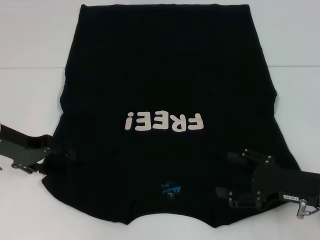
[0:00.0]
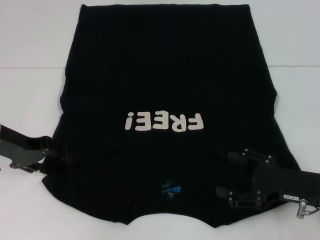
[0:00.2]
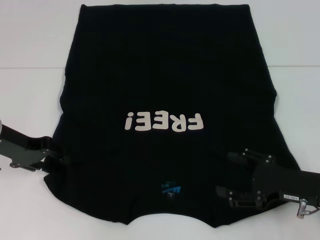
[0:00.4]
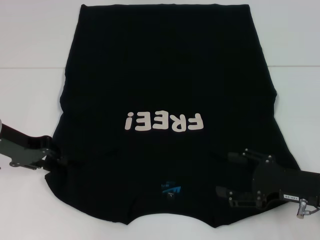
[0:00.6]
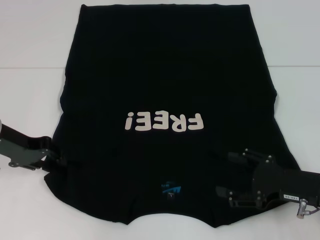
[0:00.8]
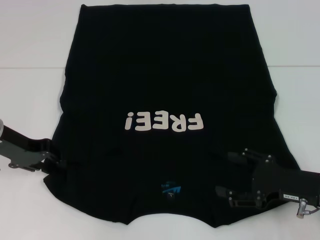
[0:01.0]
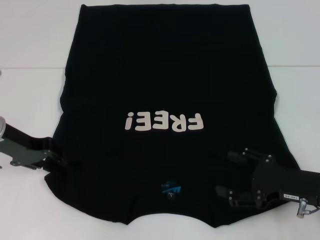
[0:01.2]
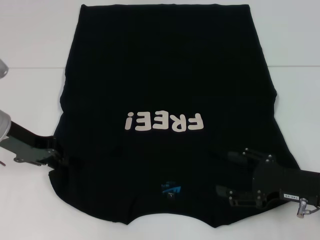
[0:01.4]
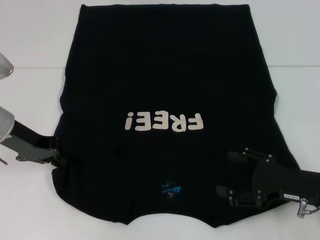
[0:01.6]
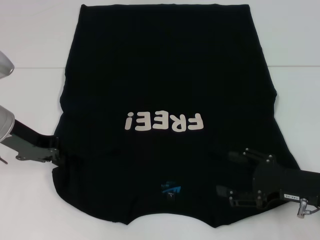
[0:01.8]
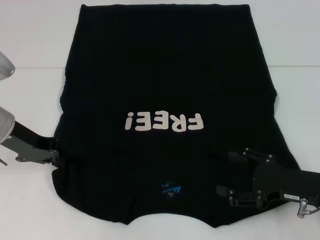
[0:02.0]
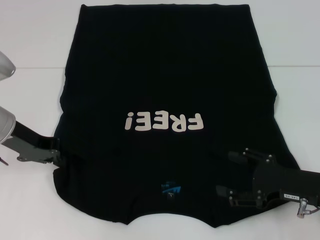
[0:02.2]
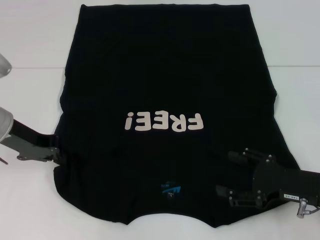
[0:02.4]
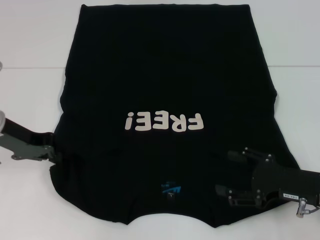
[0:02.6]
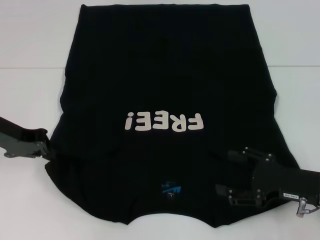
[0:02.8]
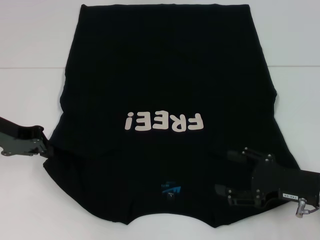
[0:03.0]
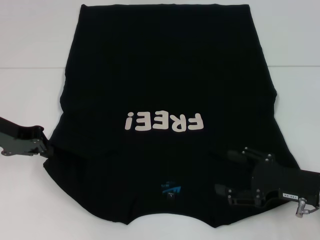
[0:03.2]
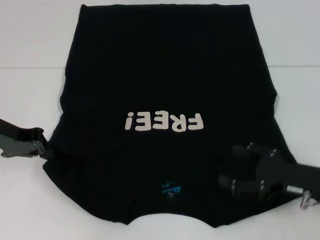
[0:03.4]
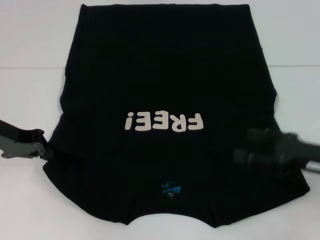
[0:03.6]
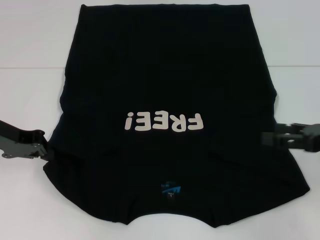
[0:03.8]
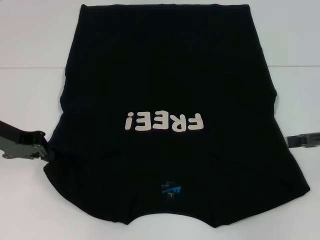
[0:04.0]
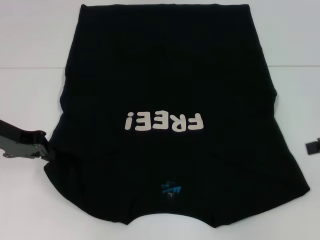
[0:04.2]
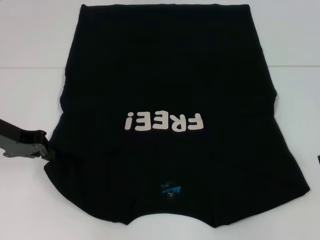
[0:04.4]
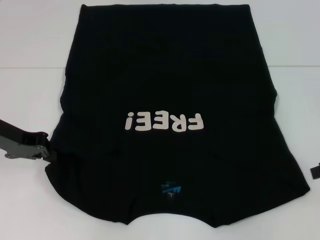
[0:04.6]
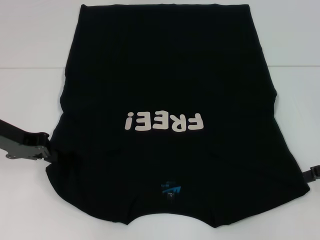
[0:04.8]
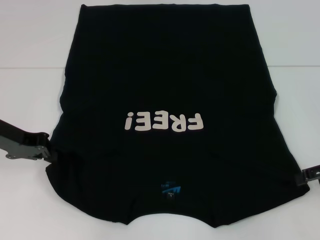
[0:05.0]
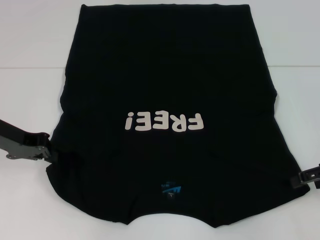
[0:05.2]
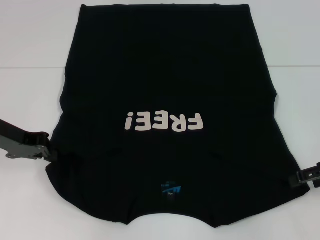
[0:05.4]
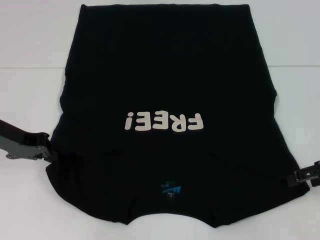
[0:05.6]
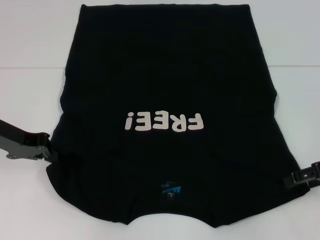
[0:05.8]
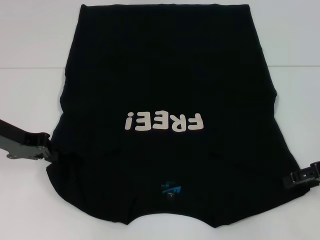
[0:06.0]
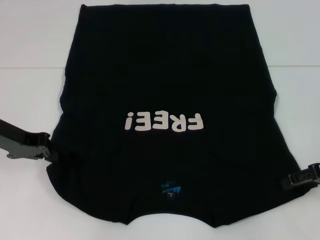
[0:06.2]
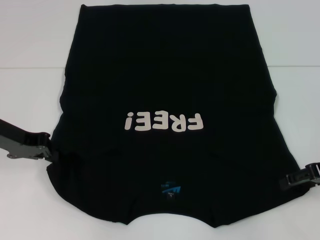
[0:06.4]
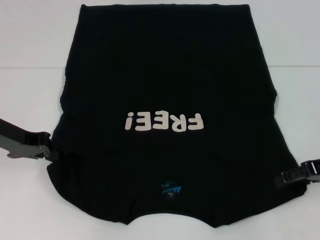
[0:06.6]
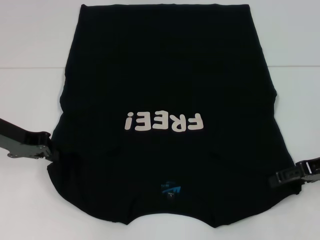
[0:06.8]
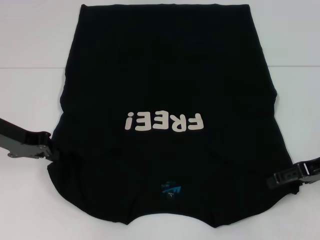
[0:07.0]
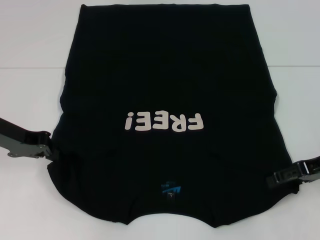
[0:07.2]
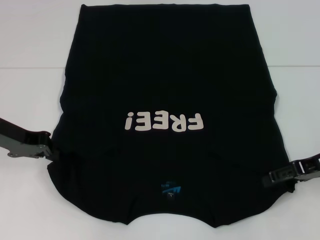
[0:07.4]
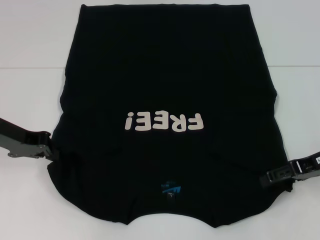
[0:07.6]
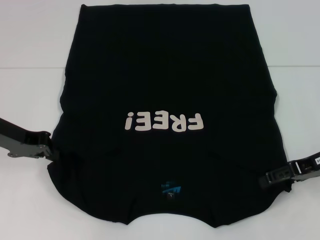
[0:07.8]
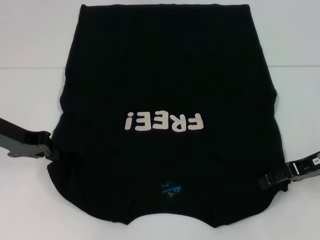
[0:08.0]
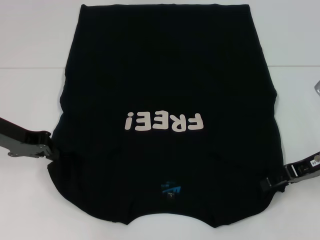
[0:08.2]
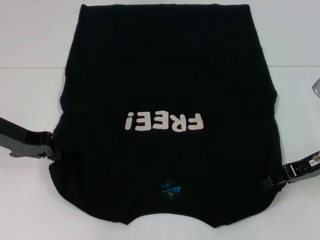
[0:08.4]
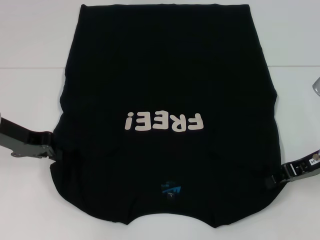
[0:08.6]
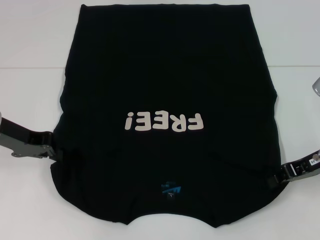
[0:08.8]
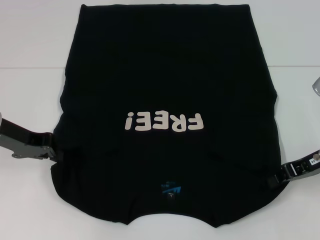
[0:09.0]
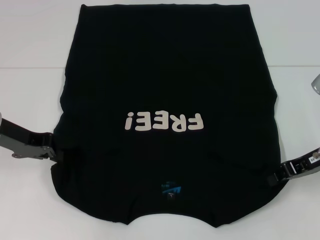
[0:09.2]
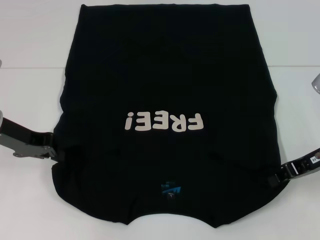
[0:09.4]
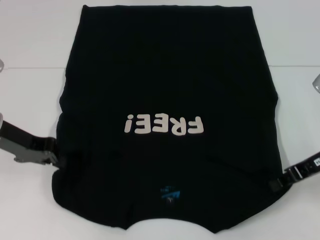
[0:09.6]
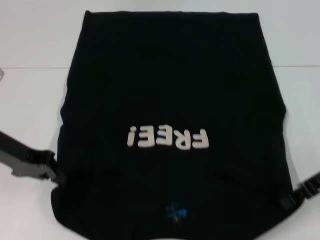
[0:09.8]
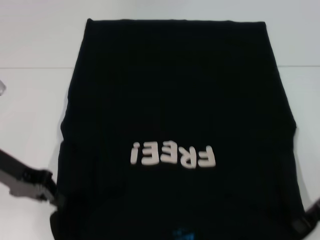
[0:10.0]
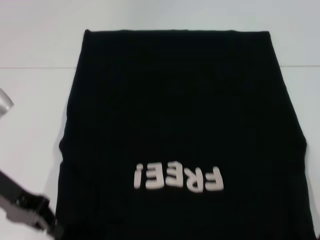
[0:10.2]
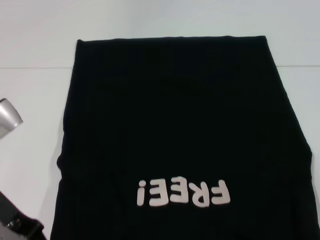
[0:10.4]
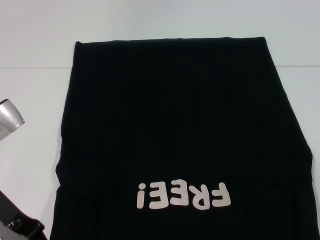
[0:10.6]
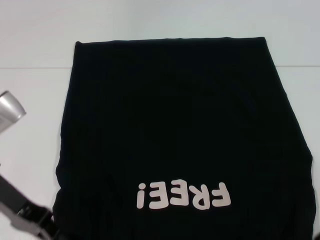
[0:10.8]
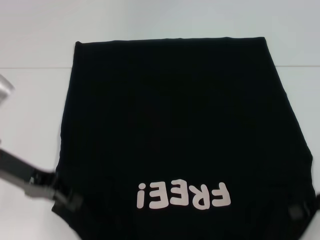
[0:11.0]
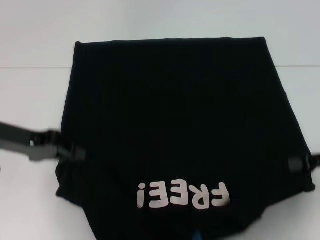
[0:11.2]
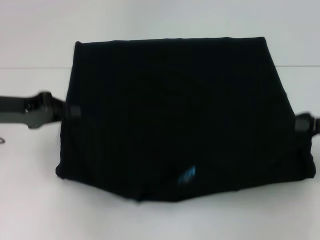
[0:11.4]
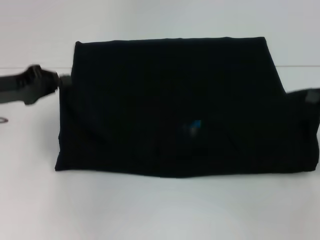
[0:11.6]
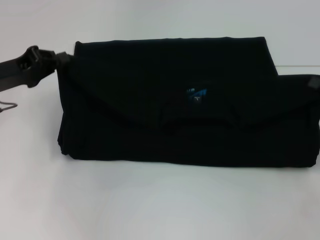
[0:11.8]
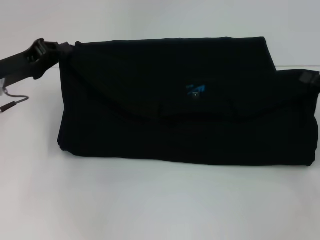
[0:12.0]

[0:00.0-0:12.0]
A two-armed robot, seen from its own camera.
Step, 0:00.0 to 0:02.0: Grab the bottom left corner with your left hand.
Step, 0:02.2 to 0:09.0: Grab the bottom right corner with your right hand.
0:00.0 to 0:01.6: The left gripper closes.
0:01.6 to 0:03.0: The grippers make only small movements.
0:03.0 to 0:04.4: The right gripper goes about 15 cm upward, to the right and forward.
0:04.4 to 0:06.0: The right gripper is displaced downward by approximately 5 cm.
0:06.0 to 0:07.6: The grippers stay close to where they were, moving slightly.
0:07.6 to 0:09.0: The right gripper closes up.
0:09.0 to 0:10.4: Both grippers move backward, approximately 5 cm.
0:10.4 to 0:12.0: The right gripper heads to the right, covering some 5 cm; the left gripper moves forward, about 10 cm.

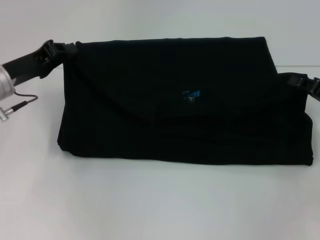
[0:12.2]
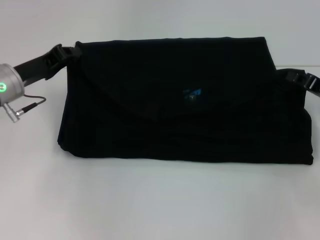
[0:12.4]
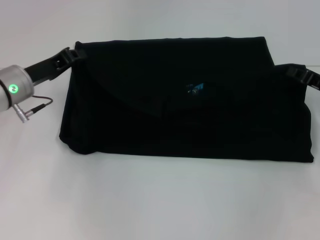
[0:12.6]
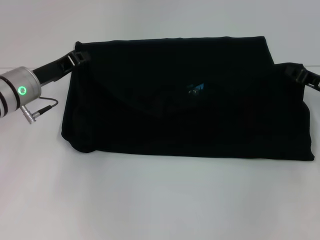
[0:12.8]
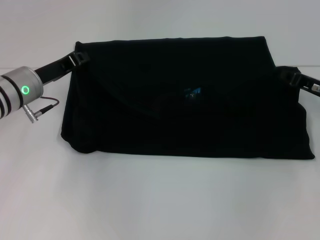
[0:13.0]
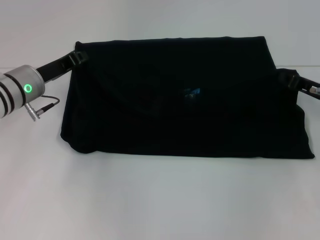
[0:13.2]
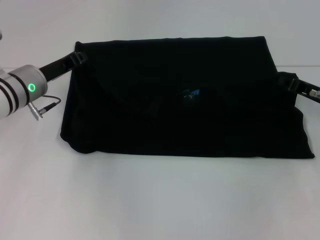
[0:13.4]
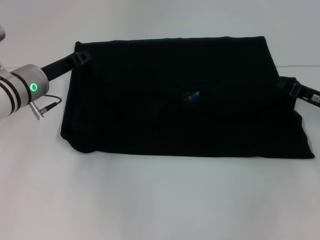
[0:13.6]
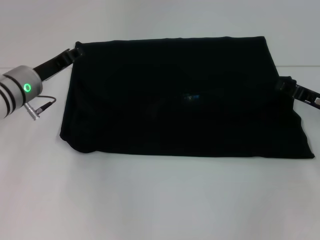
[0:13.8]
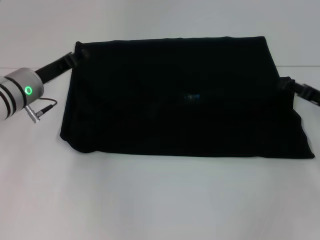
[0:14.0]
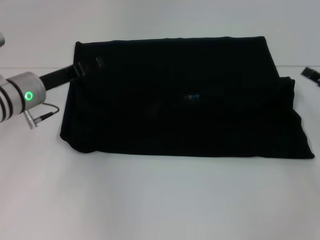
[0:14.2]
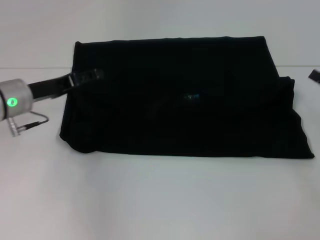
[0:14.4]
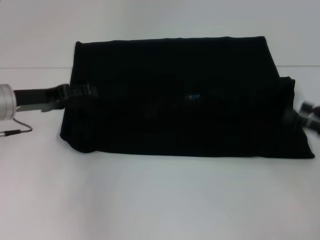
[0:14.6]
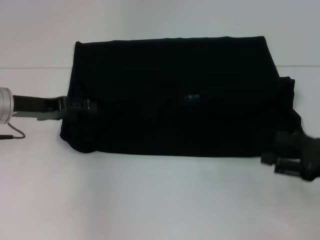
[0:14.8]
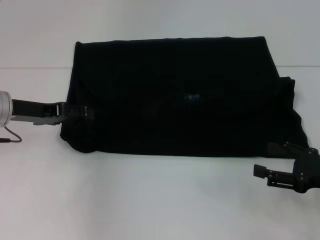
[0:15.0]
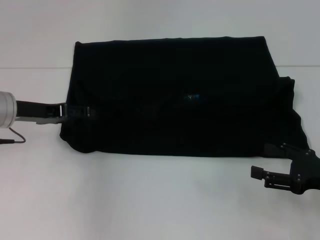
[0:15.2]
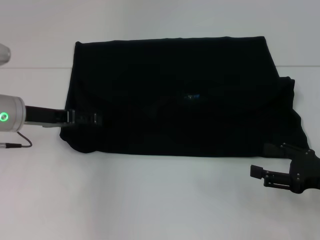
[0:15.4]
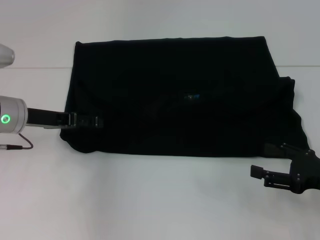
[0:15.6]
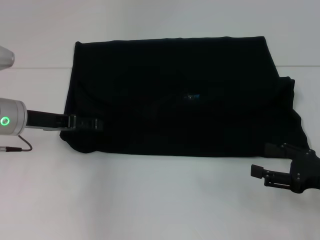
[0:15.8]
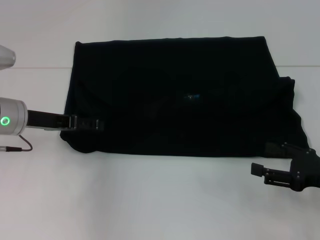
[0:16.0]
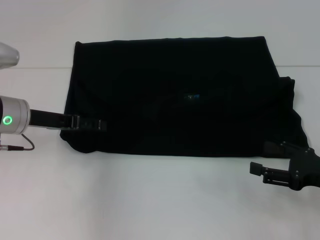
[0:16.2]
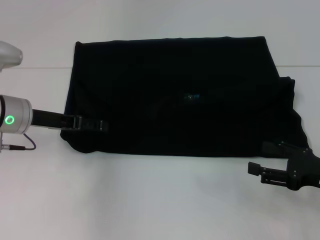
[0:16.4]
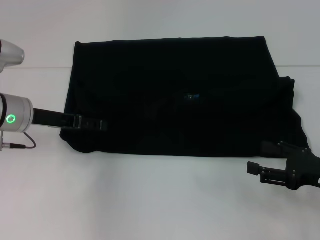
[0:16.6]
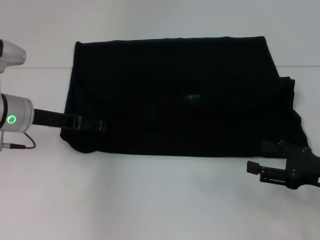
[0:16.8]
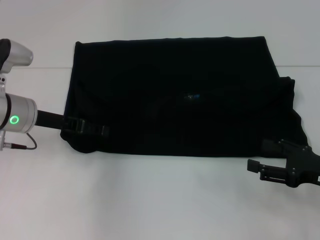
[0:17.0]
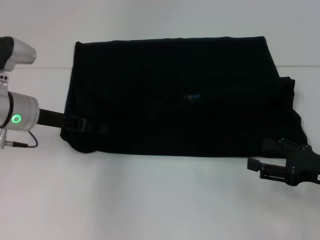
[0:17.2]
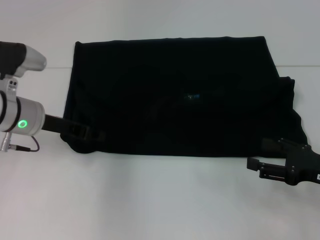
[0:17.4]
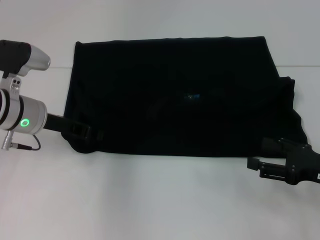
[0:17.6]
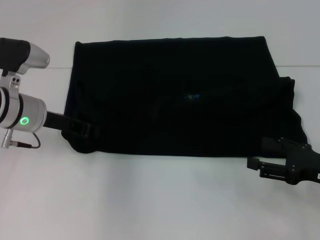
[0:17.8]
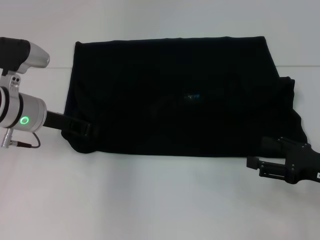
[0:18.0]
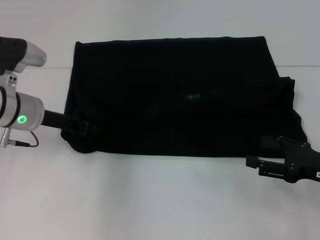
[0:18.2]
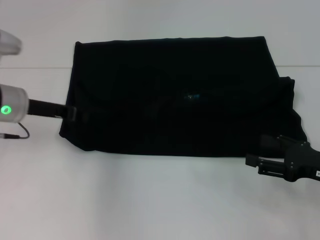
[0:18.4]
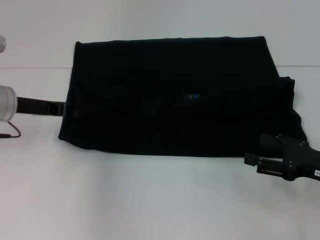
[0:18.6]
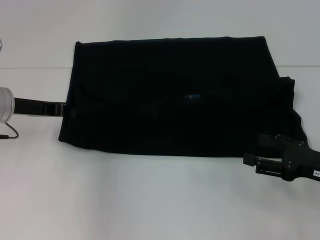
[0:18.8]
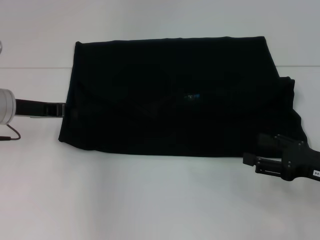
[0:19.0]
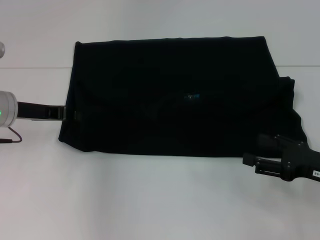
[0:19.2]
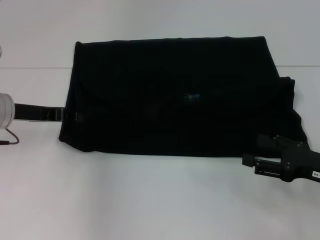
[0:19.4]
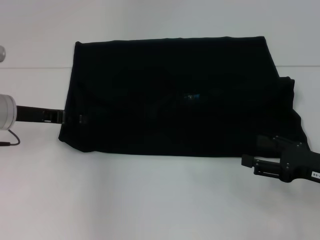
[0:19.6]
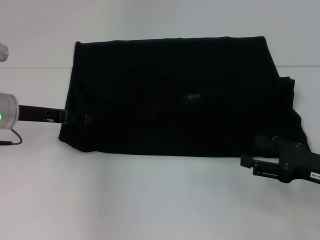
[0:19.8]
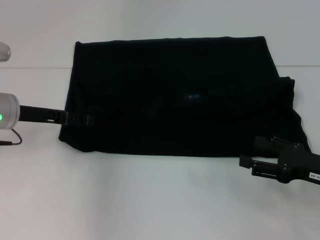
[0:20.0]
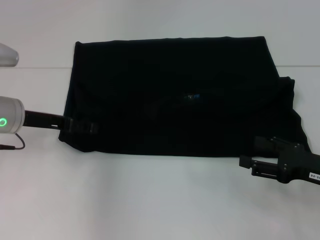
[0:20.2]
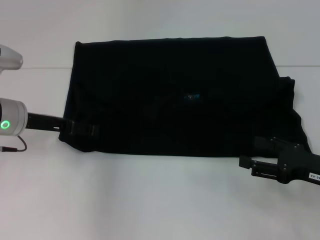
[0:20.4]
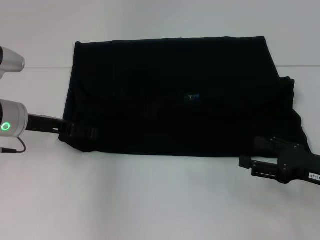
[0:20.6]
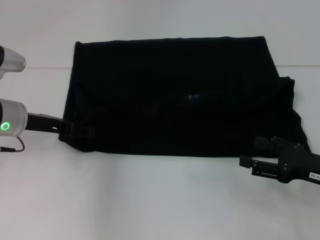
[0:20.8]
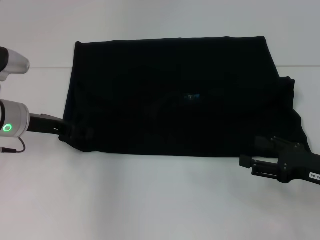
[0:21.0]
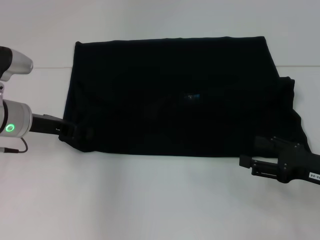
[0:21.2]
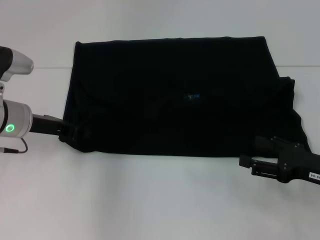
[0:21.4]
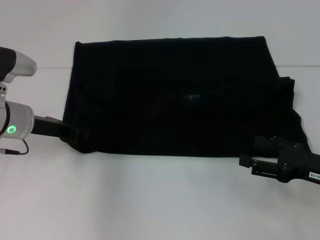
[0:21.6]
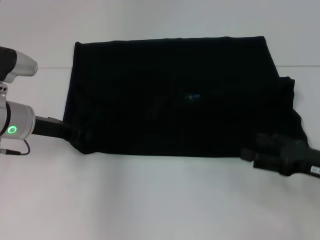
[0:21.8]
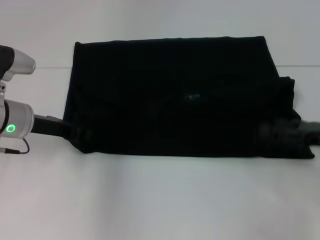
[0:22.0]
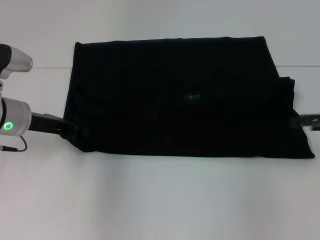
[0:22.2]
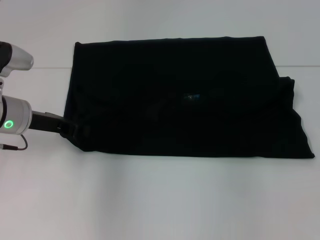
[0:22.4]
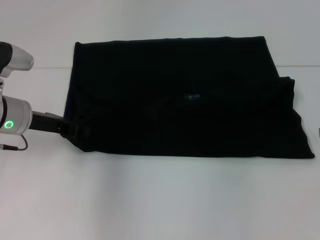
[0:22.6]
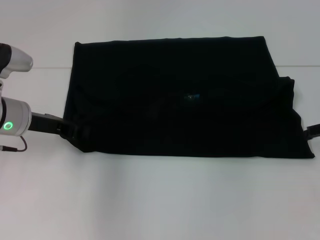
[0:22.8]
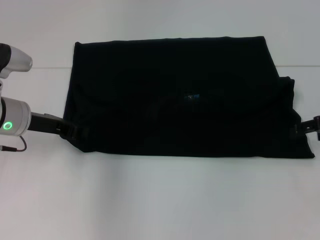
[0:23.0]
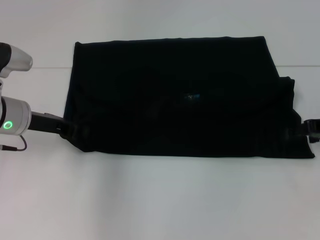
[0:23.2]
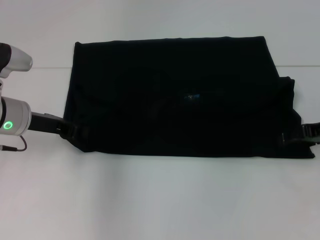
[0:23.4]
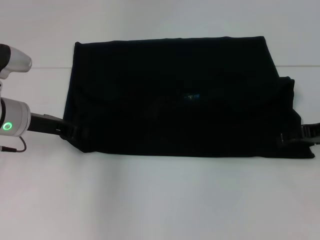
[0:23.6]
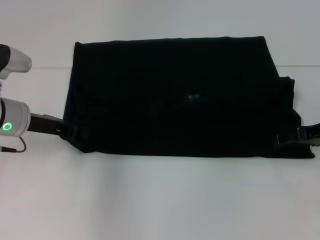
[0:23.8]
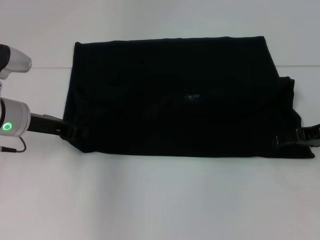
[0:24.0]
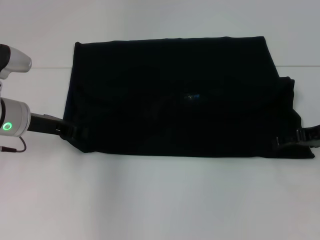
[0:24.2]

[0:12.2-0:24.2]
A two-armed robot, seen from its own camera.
0:12.2 to 0:13.8: The left gripper ends up roughly 5 cm from where it was.
0:13.8 to 0:15.2: The right gripper shifts approximately 10 cm backward, and opens; the left gripper moves about 5 cm, and opens its fingers.
0:15.2 to 0:16.6: There are only small adjustments of the grippers.
0:16.6 to 0:18.2: The left gripper closes up.
0:18.2 to 0:19.8: The left gripper opens its fingers.
0:19.8 to 0:21.2: The grippers move only a little.
0:21.2 to 0:22.6: The left gripper closes, while the right gripper shifts about 15 cm upward, forward and to the right.
